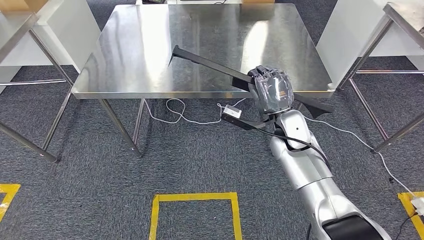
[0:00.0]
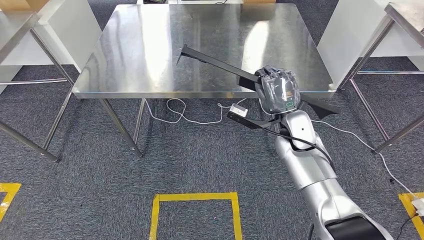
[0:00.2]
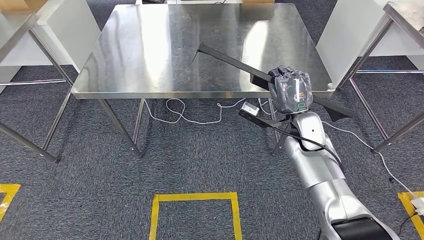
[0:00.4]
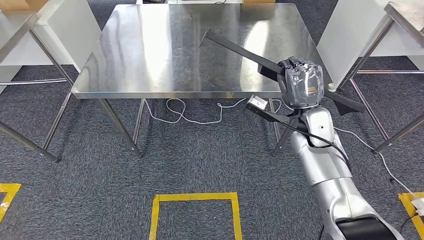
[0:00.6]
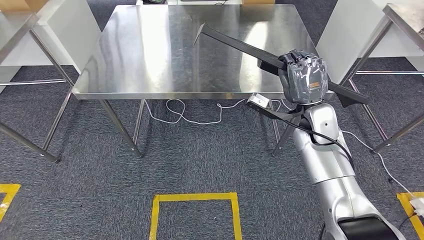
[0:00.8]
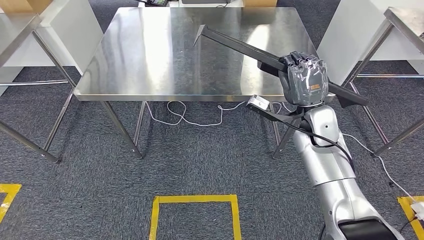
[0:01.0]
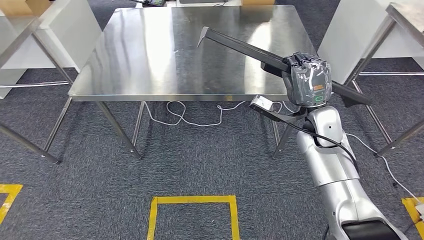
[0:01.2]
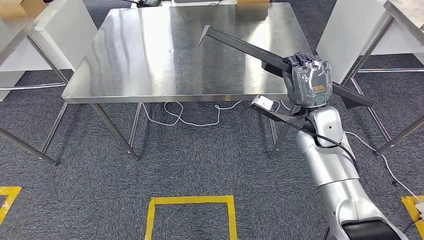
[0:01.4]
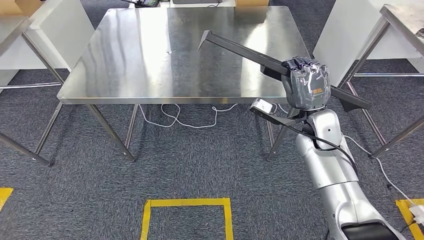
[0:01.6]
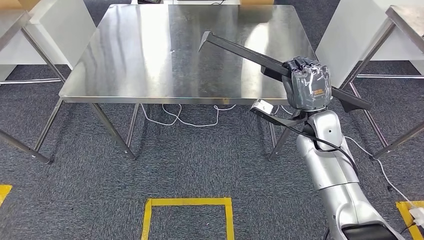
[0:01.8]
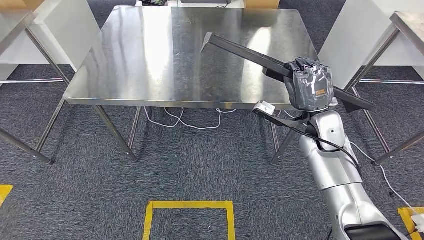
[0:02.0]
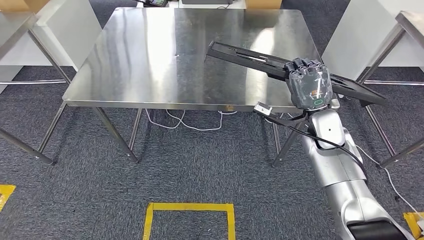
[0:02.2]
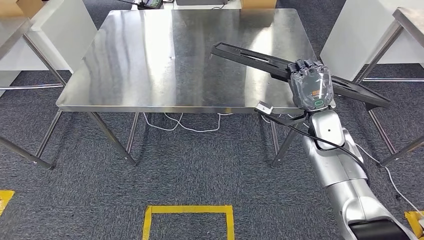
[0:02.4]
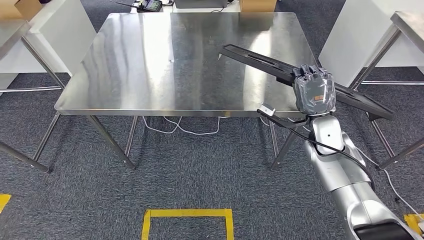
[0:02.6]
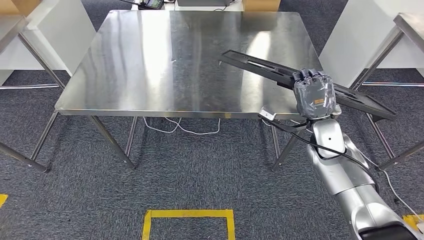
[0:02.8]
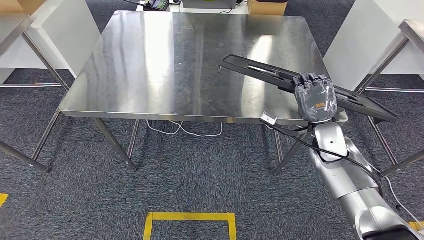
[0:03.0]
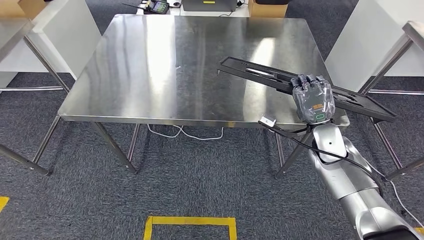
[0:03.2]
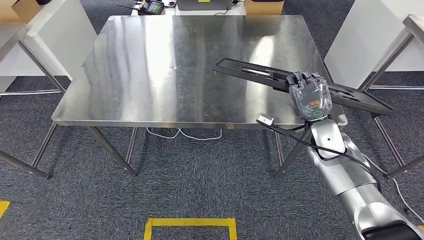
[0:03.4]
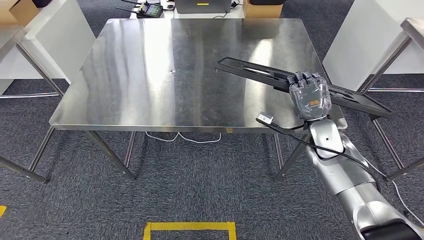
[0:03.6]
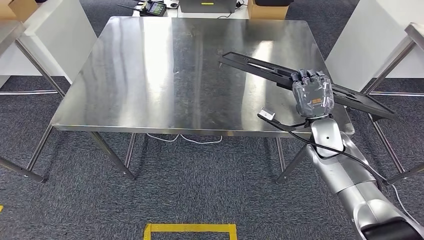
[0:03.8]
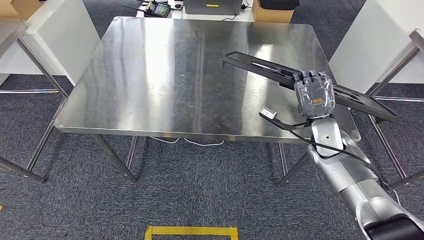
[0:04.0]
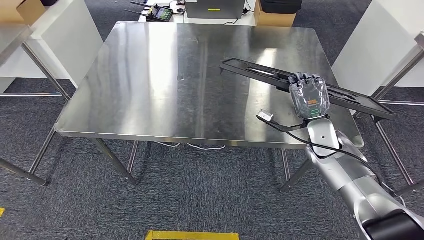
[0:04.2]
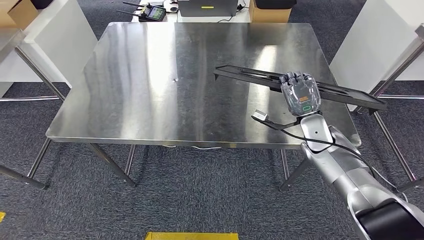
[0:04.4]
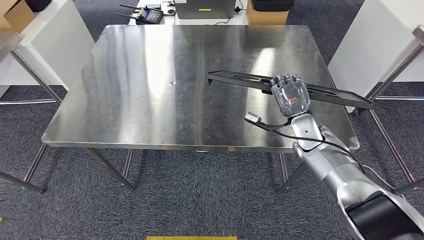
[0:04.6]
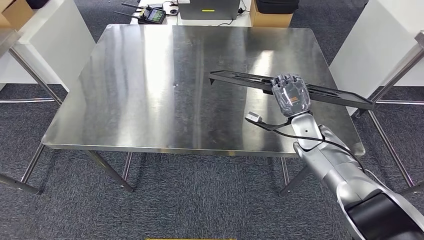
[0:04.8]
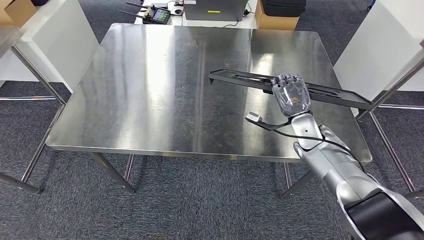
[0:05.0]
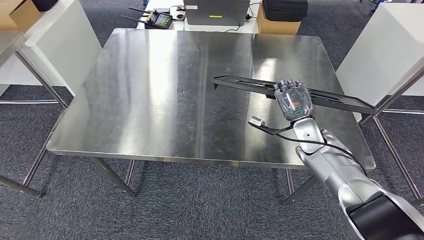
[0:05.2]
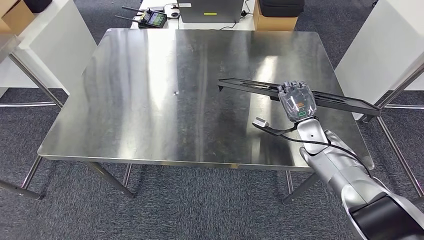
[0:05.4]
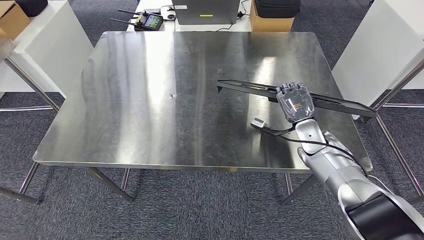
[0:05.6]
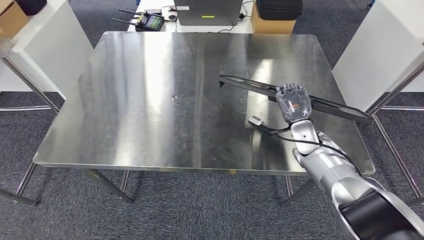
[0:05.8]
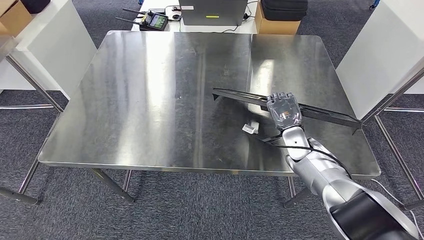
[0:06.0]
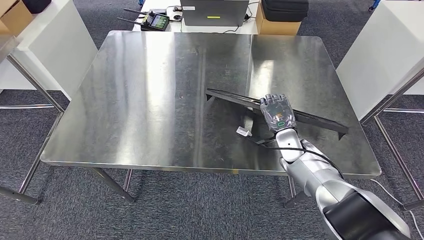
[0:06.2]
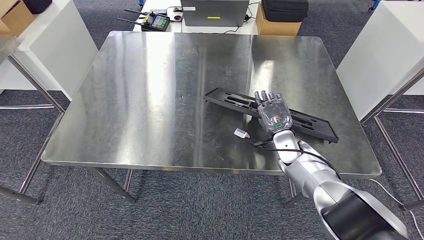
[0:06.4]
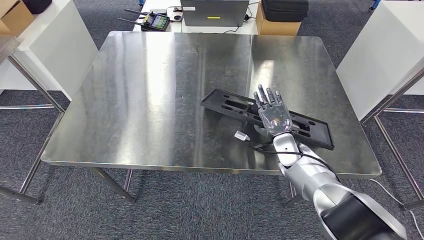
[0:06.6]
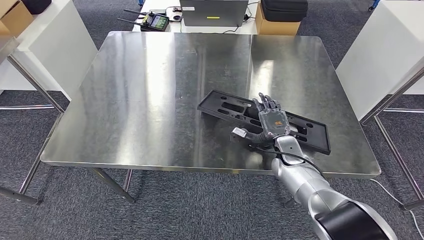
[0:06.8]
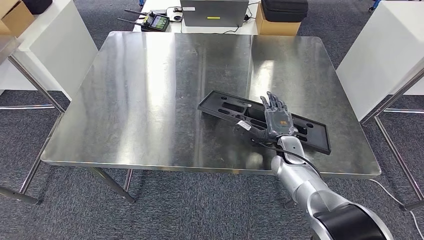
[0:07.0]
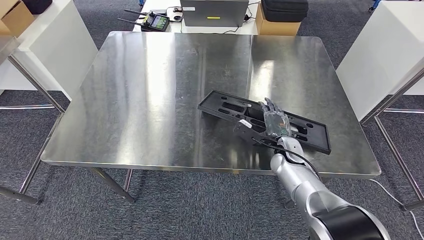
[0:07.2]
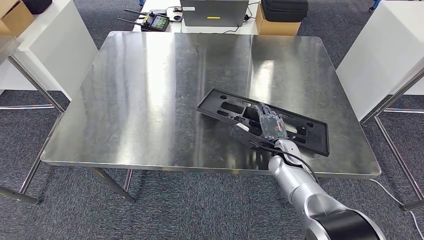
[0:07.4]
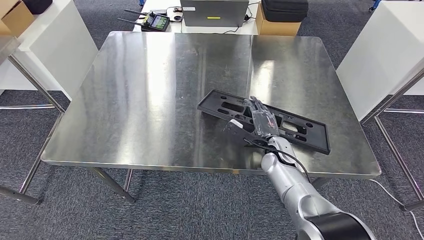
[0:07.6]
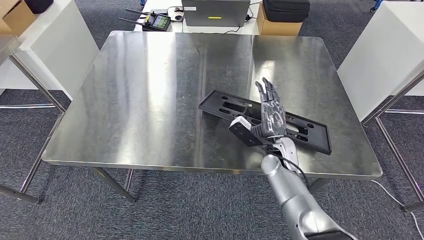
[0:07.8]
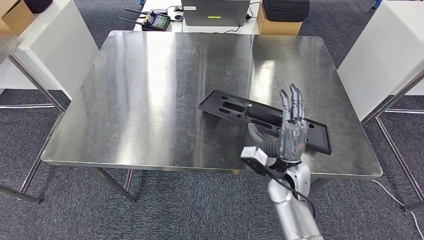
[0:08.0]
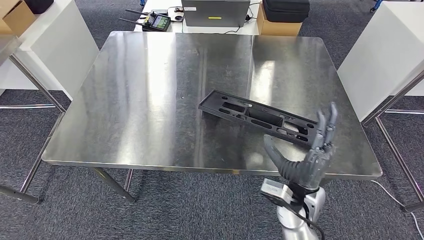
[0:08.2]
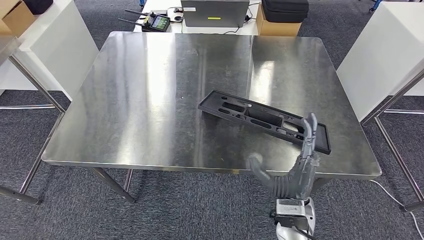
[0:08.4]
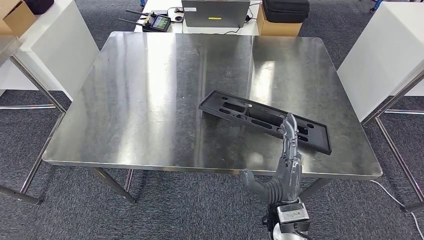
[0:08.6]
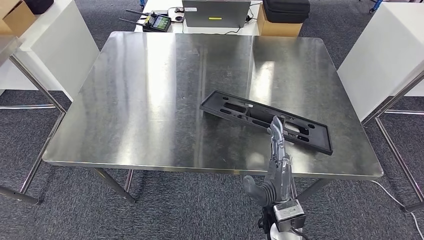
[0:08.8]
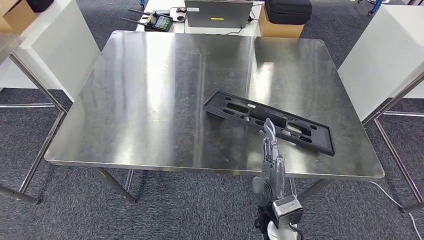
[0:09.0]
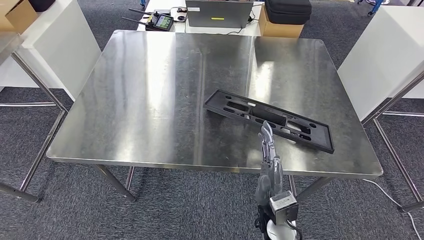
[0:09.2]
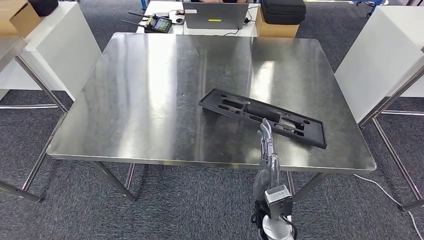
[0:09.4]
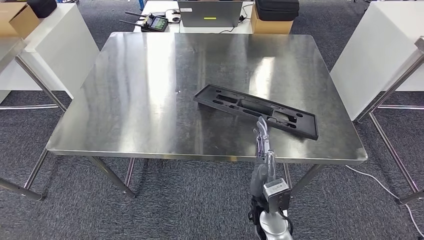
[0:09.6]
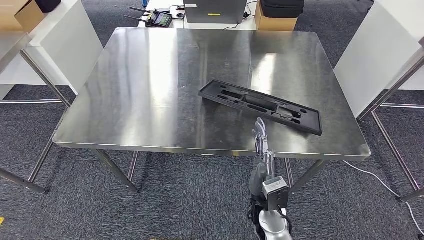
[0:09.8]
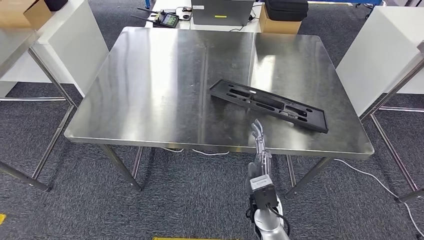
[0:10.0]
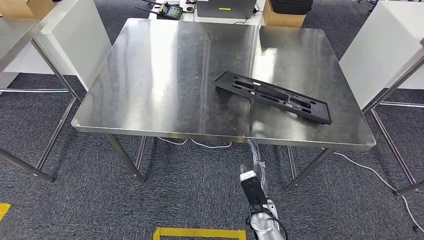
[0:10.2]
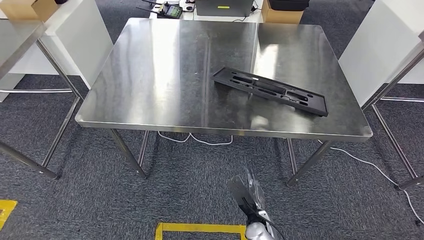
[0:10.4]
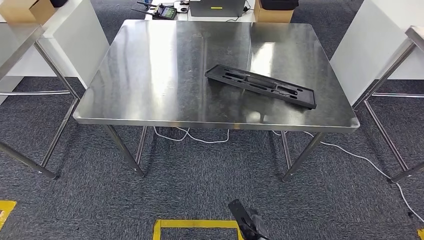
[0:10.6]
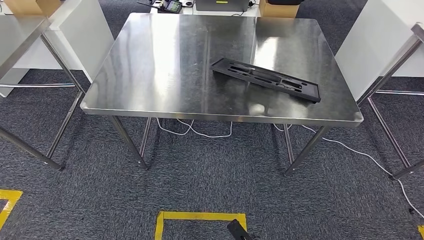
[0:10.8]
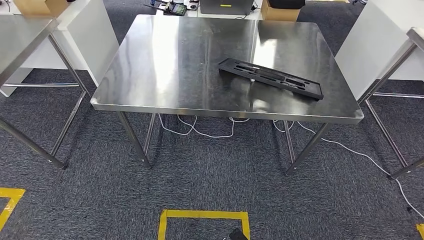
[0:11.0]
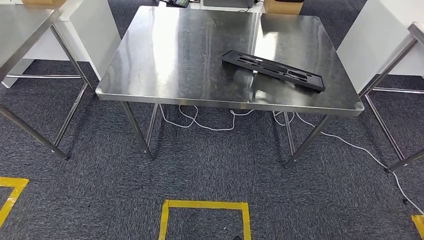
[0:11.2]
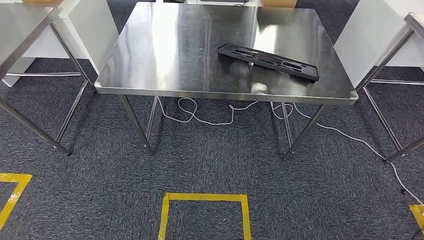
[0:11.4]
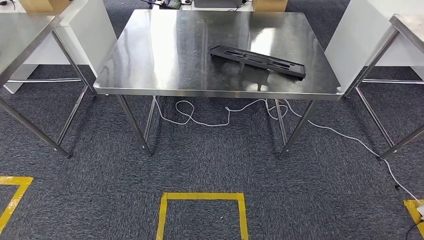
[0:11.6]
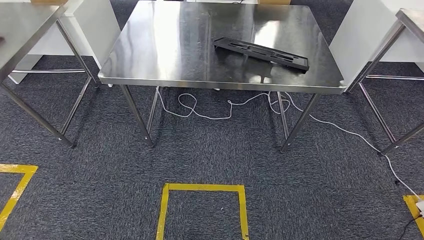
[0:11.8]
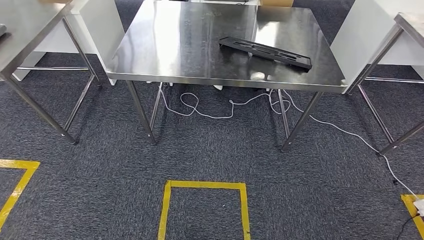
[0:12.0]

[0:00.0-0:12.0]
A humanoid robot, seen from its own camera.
0:06.0 to 0:07.6: The right hand moves to the left, some 5 cm.
0:07.6 to 0:09.0: The right hand travels backward by some 20 cm.

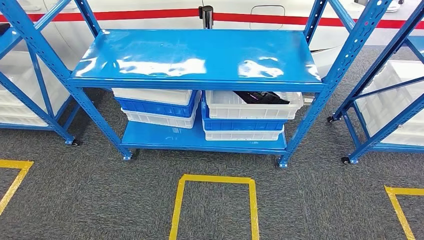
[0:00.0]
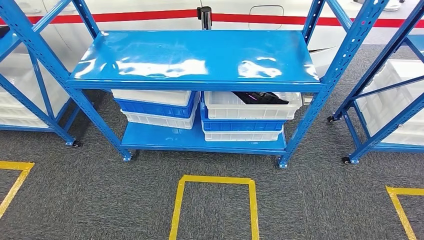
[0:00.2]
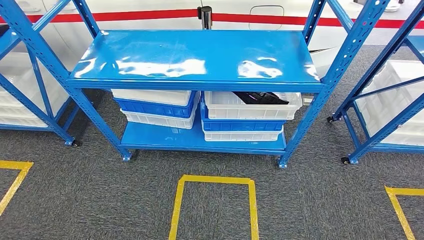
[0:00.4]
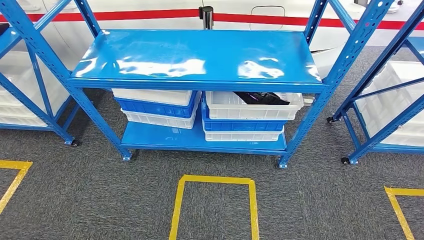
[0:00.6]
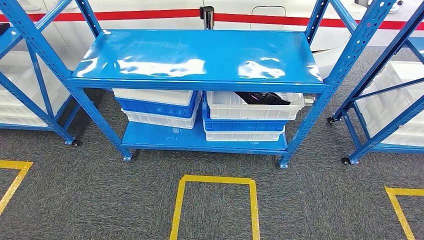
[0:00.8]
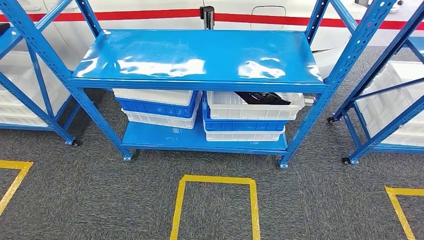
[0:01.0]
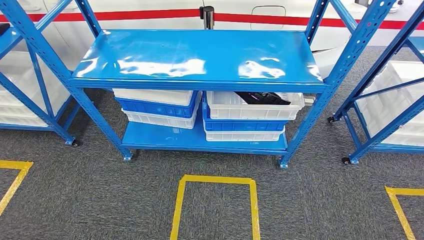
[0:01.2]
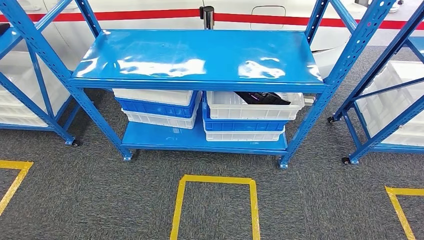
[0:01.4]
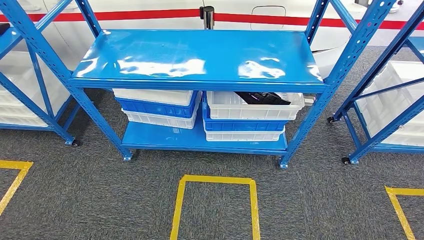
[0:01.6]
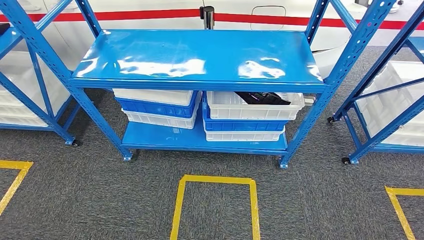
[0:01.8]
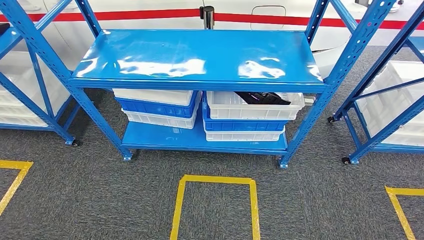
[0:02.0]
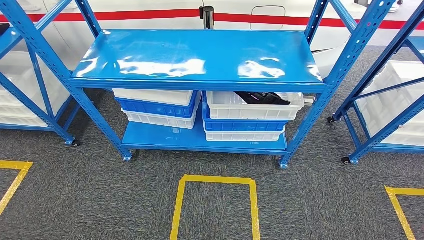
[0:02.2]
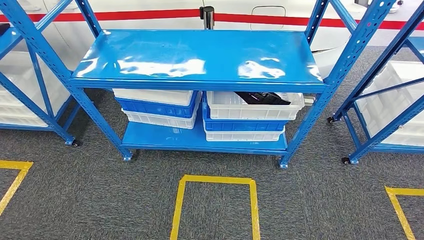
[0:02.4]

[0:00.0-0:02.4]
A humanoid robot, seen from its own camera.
Step, 0:00.0 to 0:02.4: Move to the initial position of the shelf.
0:00.0 to 0:01.2: Both hands stay put.
